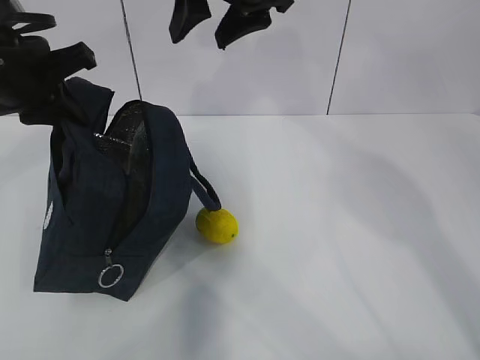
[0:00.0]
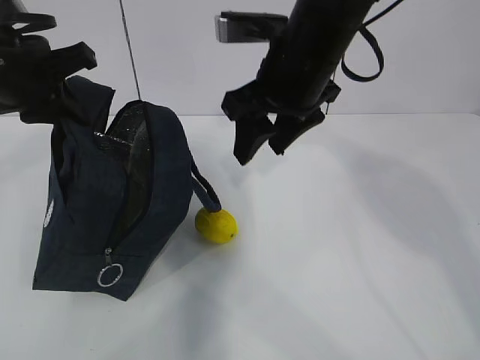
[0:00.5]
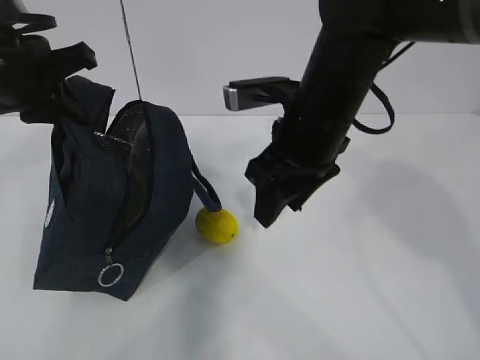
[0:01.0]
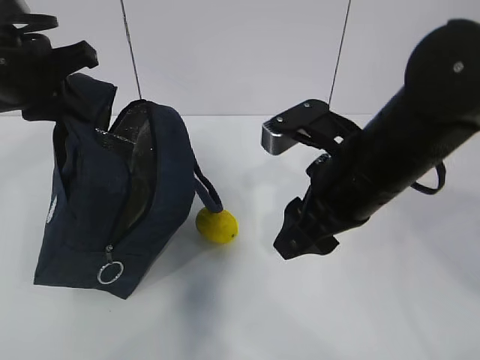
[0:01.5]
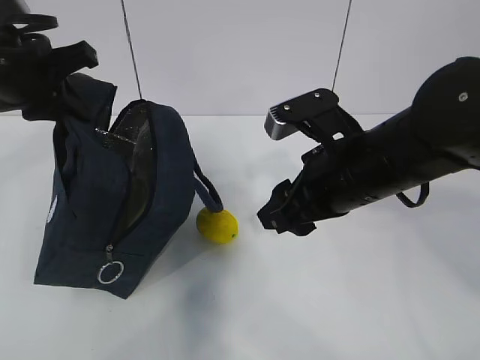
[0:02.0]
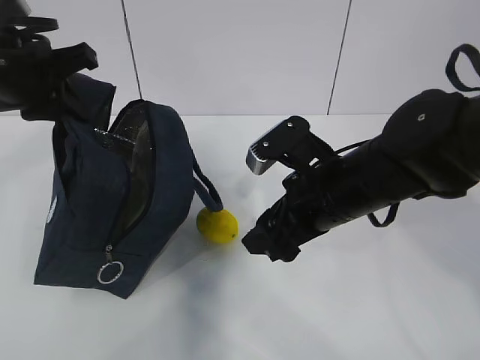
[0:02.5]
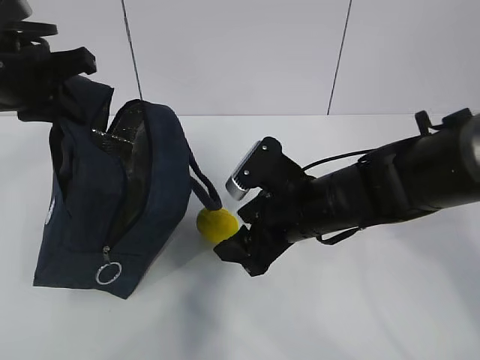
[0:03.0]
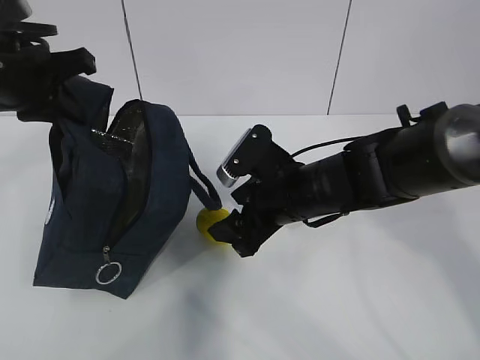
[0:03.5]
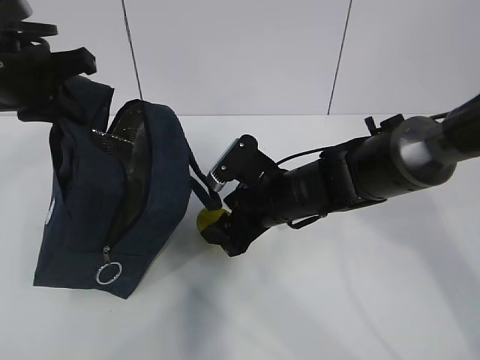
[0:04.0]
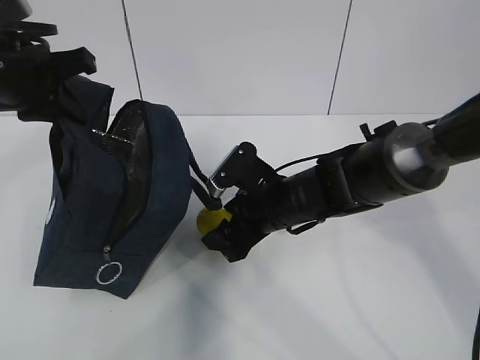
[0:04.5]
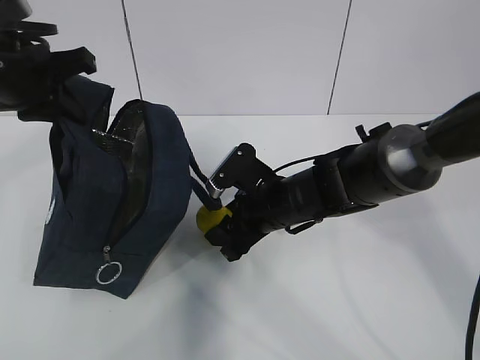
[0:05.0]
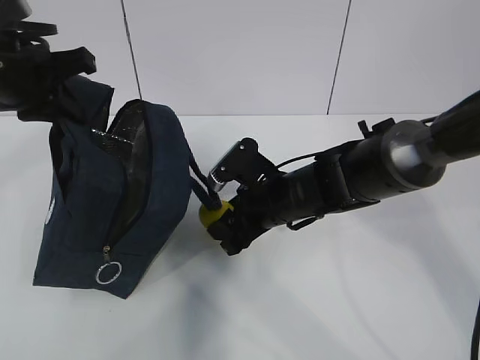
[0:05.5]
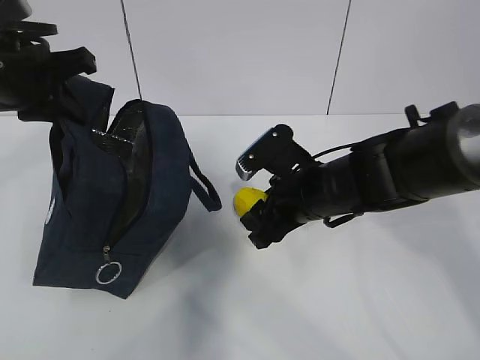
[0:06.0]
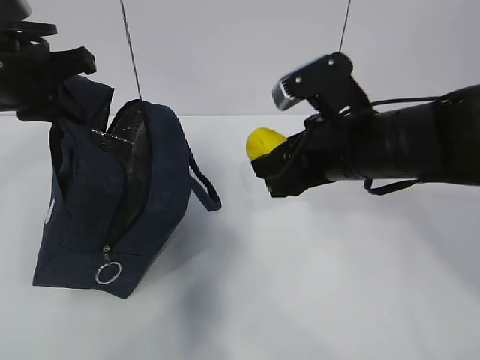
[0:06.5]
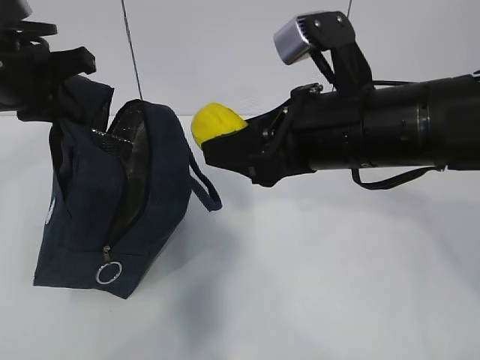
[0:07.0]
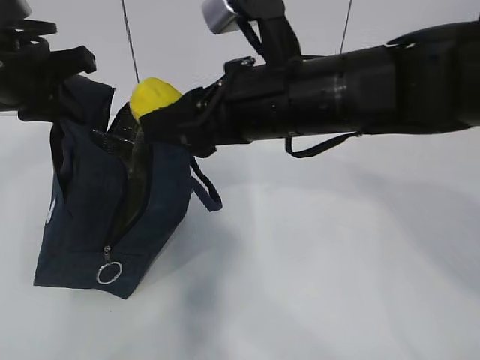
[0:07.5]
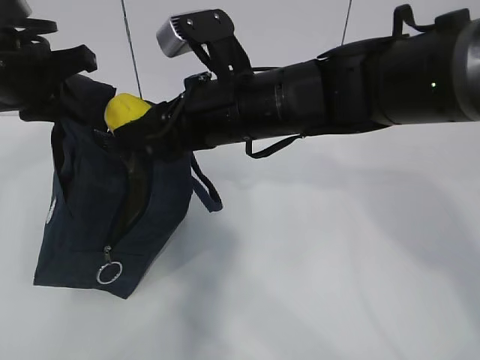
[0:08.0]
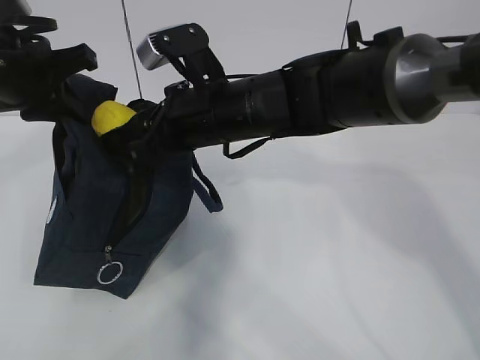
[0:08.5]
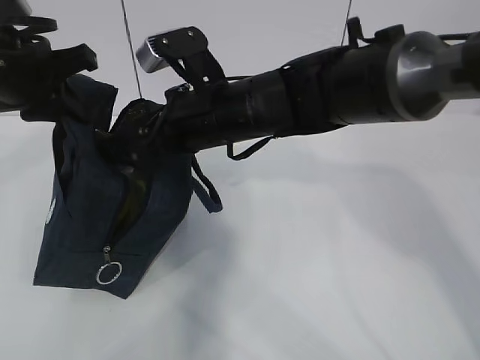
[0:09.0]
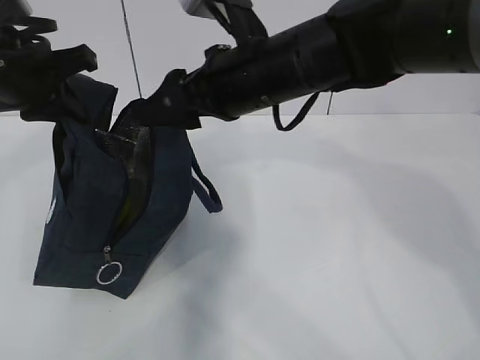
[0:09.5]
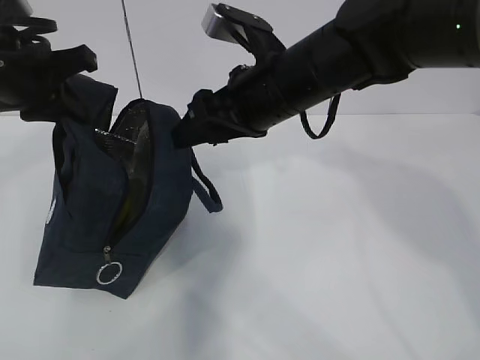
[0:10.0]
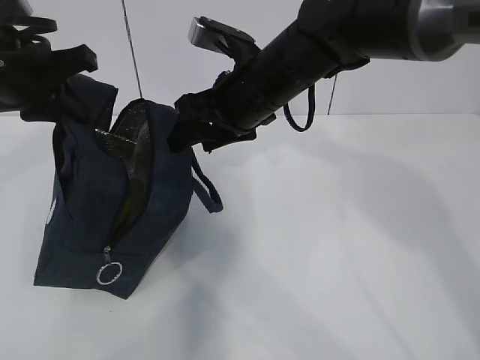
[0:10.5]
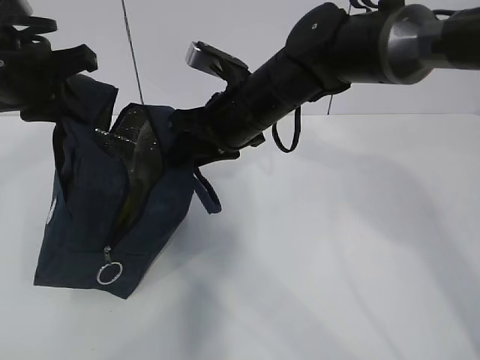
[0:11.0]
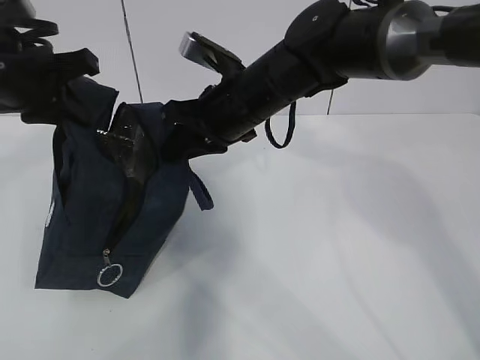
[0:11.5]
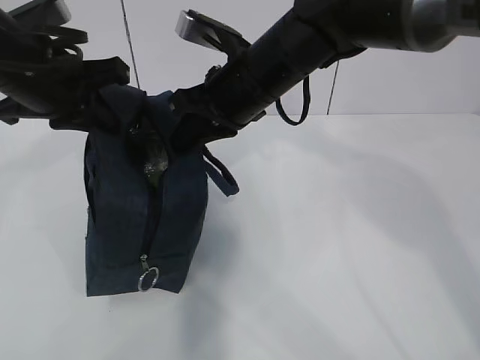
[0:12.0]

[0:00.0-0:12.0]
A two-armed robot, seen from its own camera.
Step, 0:02.5 to 0:04.0: Grab the lunch bag with your right hand.
Step, 0:04.5 to 0:08.0: Move the lunch bag to the right.
0:00.0 to 0:02.0: The right gripper goes roughly 20 cm downward, backward and to the right.
0:02.0 to 0:04.0: The right gripper goes about 15 cm downward, forward and to the left.
0:04.0 to 0:06.0: There are only small adjustments of the grippers.
0:06.0 to 0:08.0: The right gripper travels upward and to the left by about 15 cm.
0:10.0 to 0:12.0: The right gripper closes up.

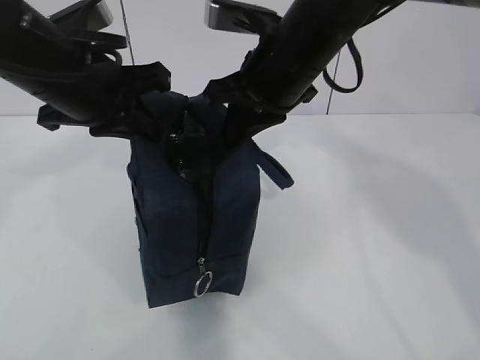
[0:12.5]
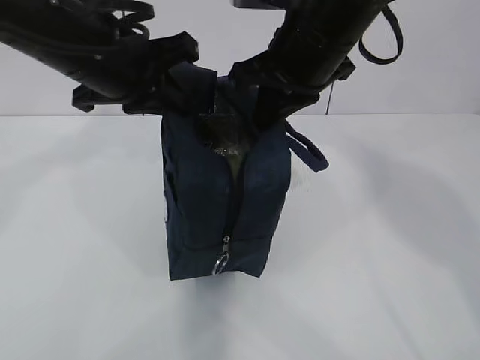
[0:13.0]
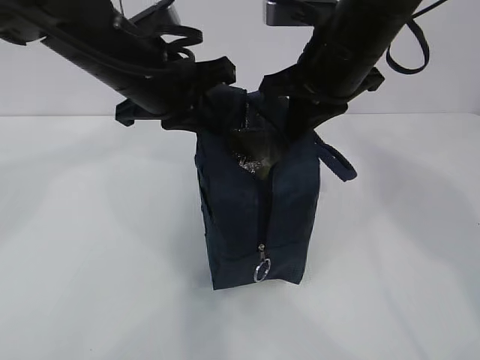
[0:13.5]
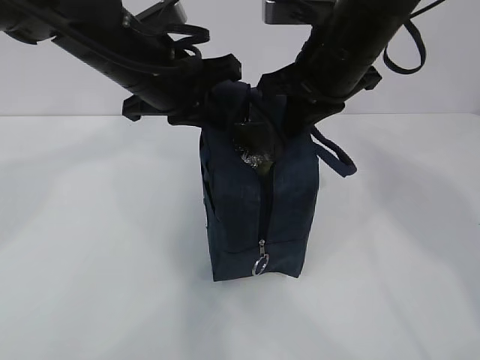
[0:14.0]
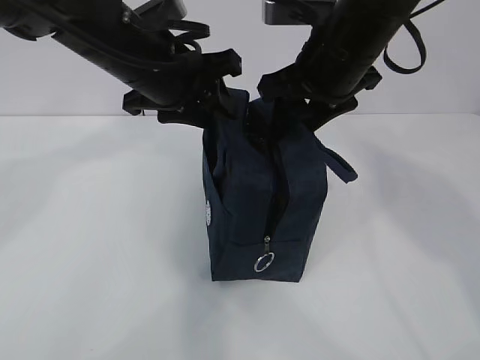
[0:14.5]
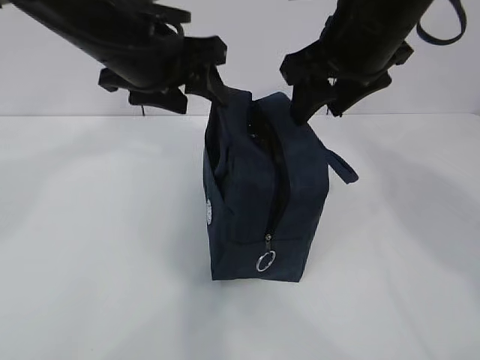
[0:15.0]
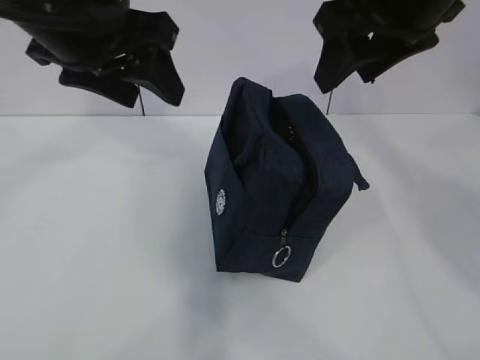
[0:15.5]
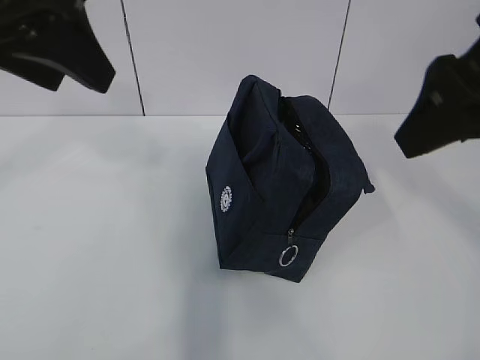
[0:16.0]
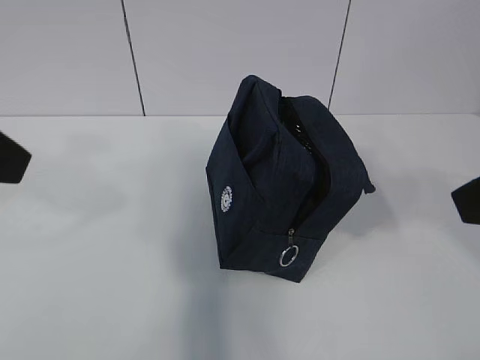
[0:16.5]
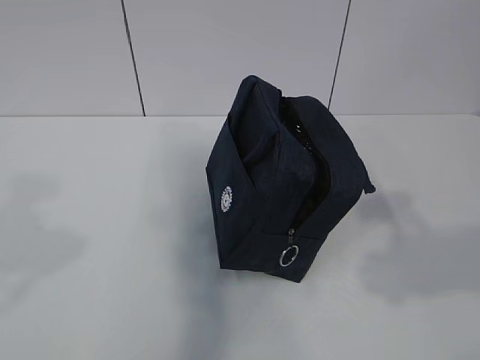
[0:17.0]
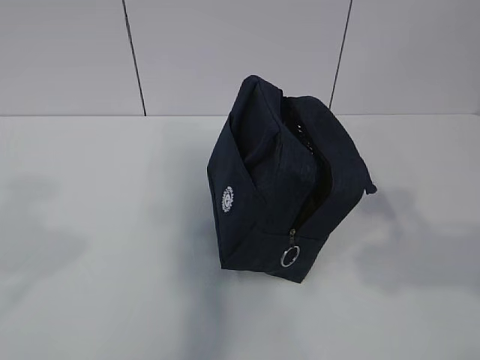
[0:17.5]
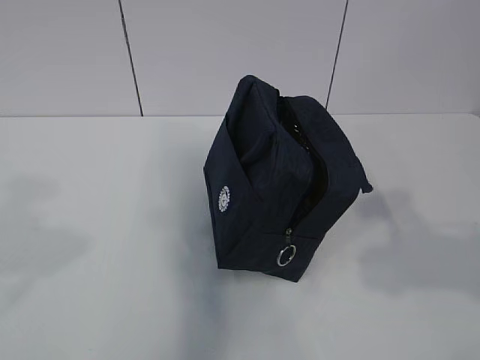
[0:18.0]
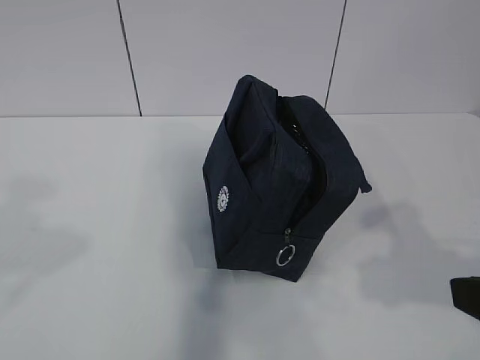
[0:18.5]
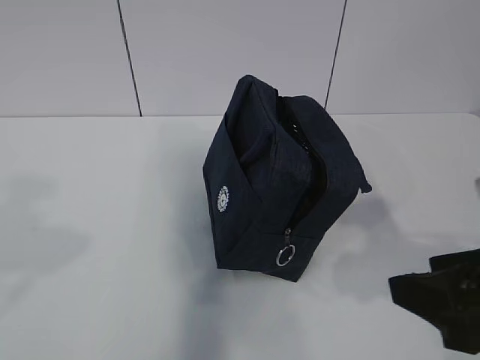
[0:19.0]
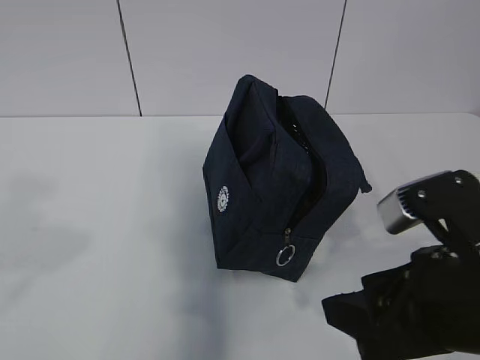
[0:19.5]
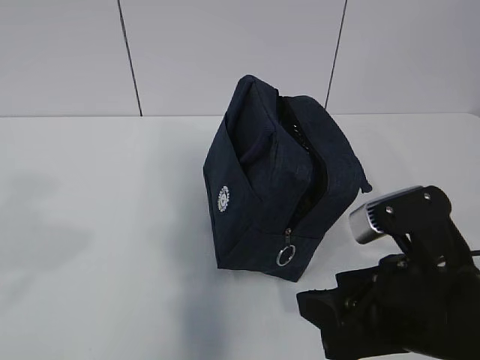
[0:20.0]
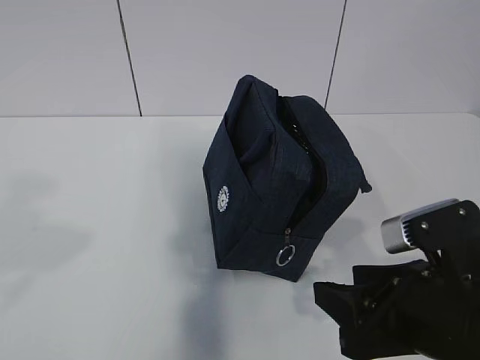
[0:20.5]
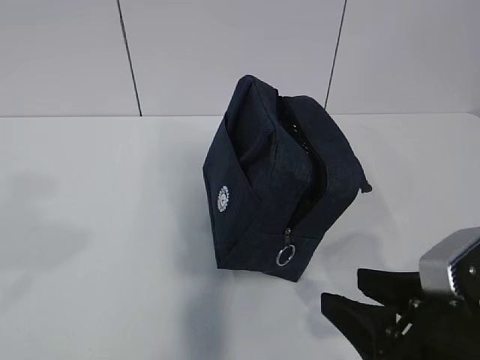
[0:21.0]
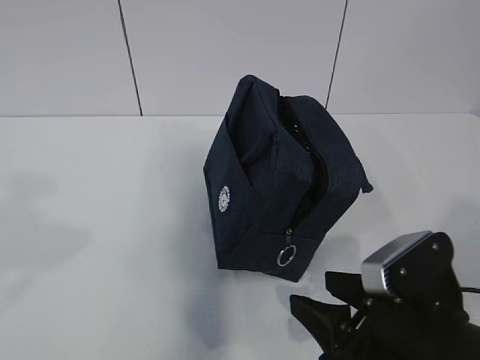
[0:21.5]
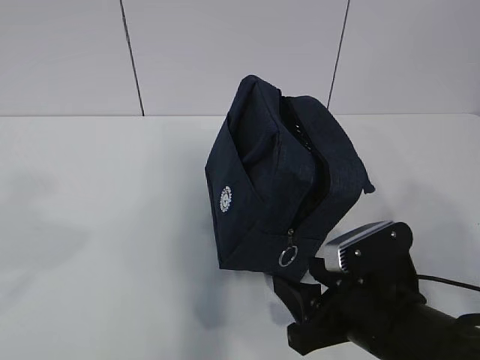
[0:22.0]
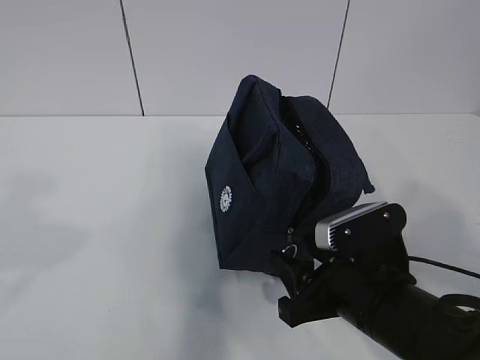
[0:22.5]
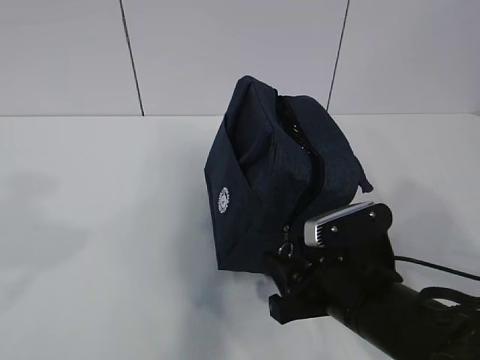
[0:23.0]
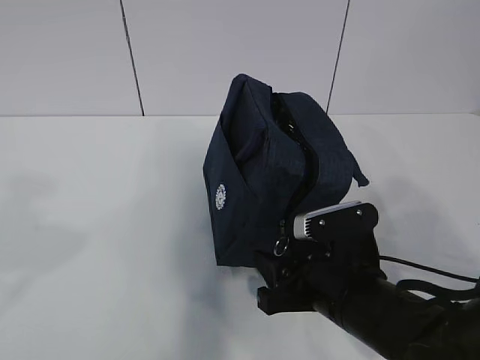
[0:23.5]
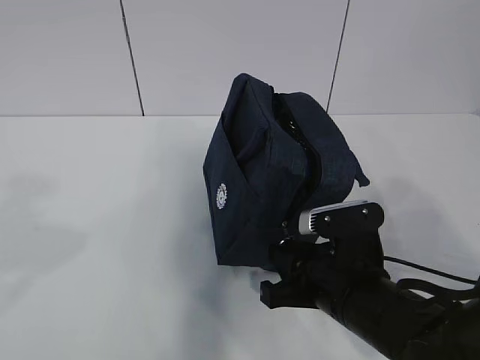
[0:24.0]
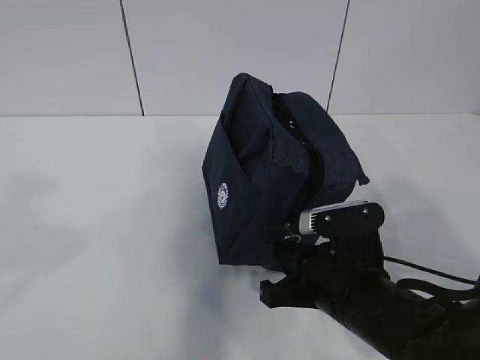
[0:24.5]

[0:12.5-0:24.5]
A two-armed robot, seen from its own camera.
0:12.5 to 0:14.5: The right gripper moves roughly 5 cm, and opens its fingers; the left gripper travels to the right by approximately 5 cm, and opens its fingers.
0:14.5 to 0:16.5: The left gripper moves backward, to the left and upward, roughly 25 cm. Meanwhile the right gripper goes some 25 cm backward and to the right.
0:16.5 to 0:18.5: The right gripper travels downward by roughly 10 cm, while the left gripper is displaced backward by approximately 10 cm.
0:18.5 to 0:20.5: The right gripper travels downward, to the left and forward by some 15 cm.
0:20.5 to 0:22.5: The right gripper goes roughly 5 cm downward.
0:22.5 to 0:24.5: The right gripper closes.

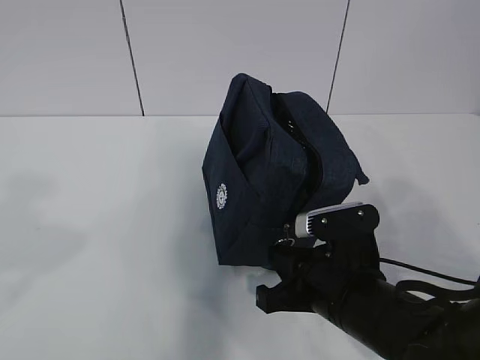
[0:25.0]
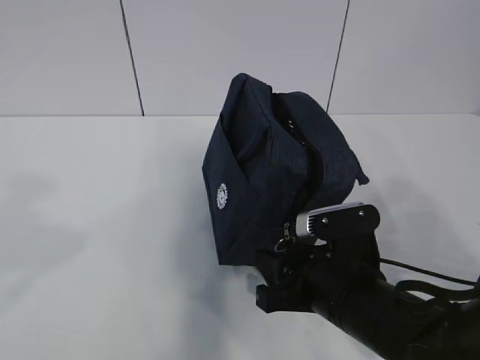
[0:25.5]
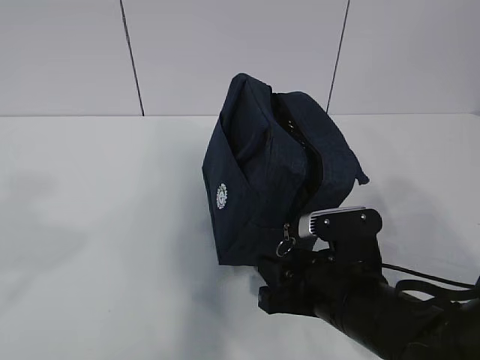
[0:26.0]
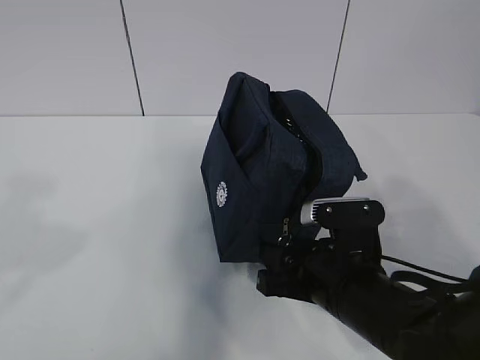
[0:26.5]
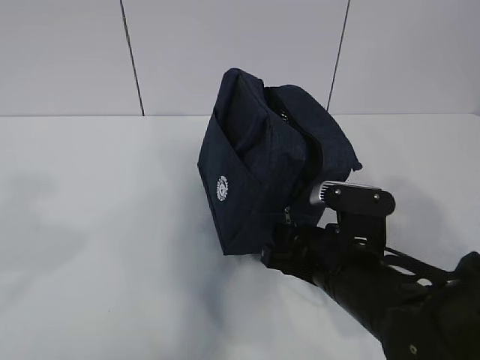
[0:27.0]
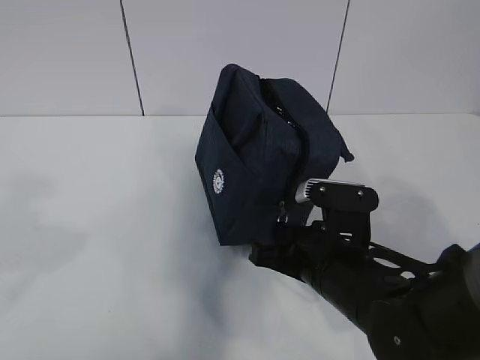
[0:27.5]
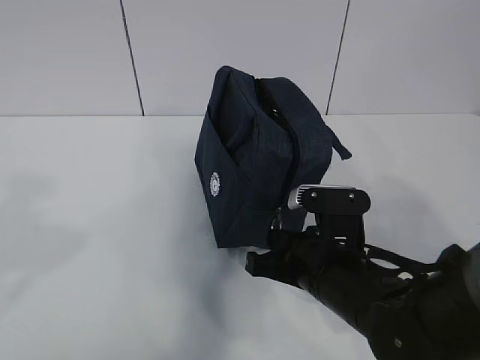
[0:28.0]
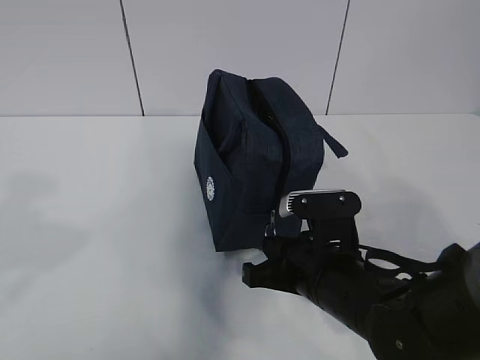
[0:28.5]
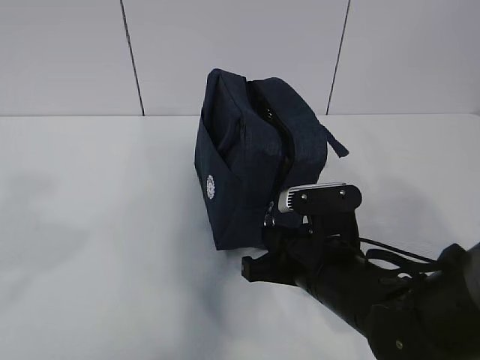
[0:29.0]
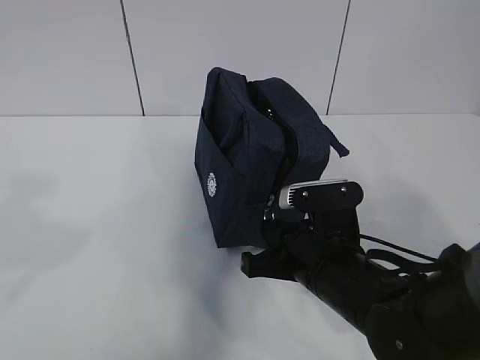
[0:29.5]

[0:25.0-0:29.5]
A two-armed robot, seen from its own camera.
0:25.0 to 0:27.0: The right gripper opens up.
0:27.0 to 0:29.5: The right gripper closes.
